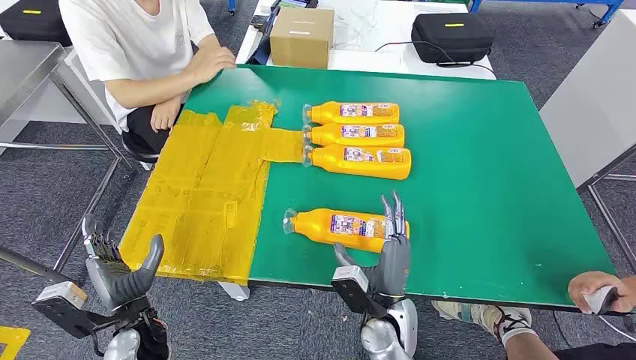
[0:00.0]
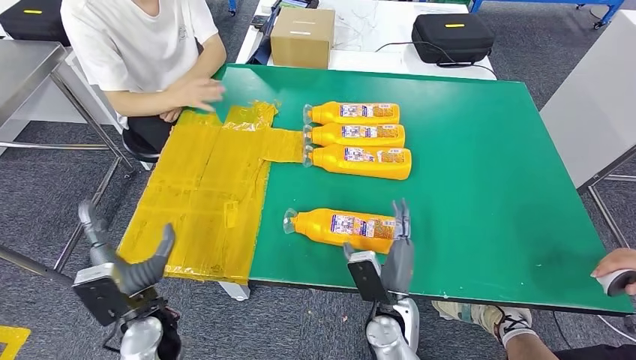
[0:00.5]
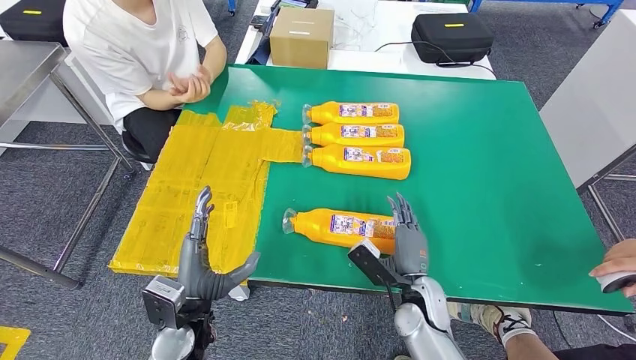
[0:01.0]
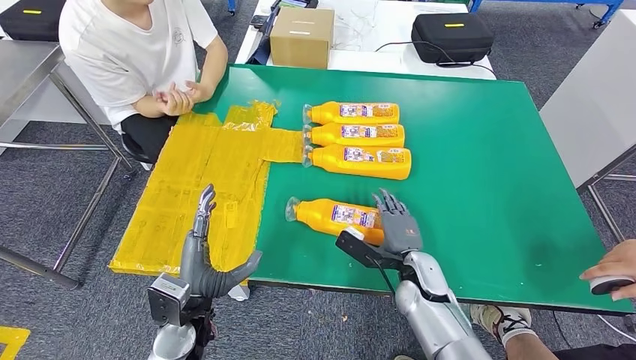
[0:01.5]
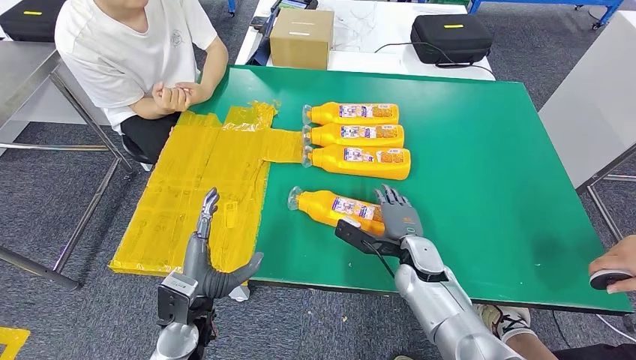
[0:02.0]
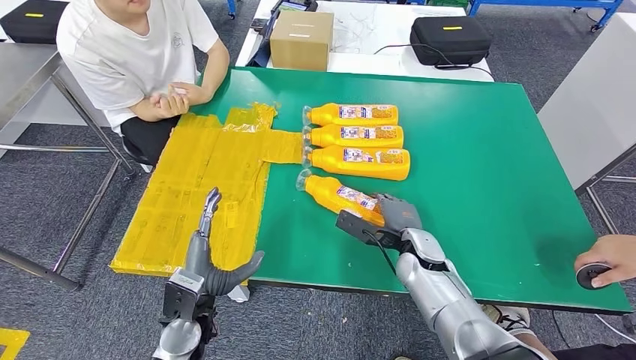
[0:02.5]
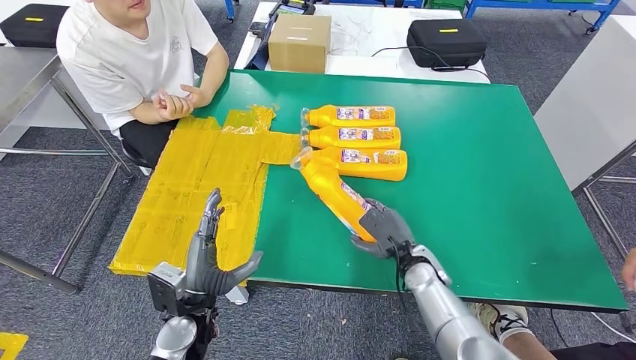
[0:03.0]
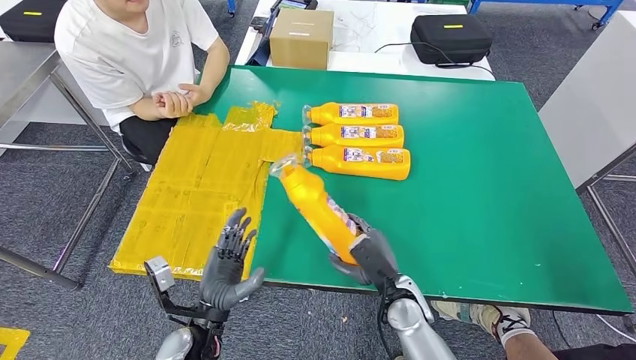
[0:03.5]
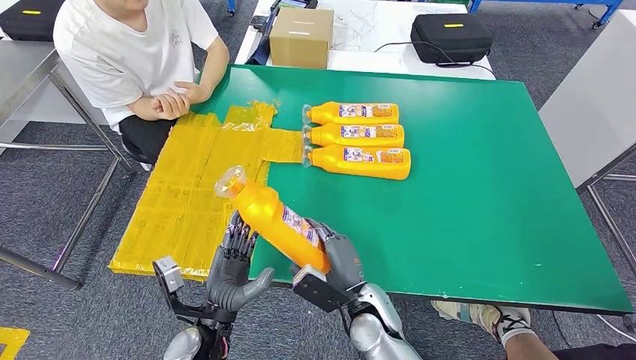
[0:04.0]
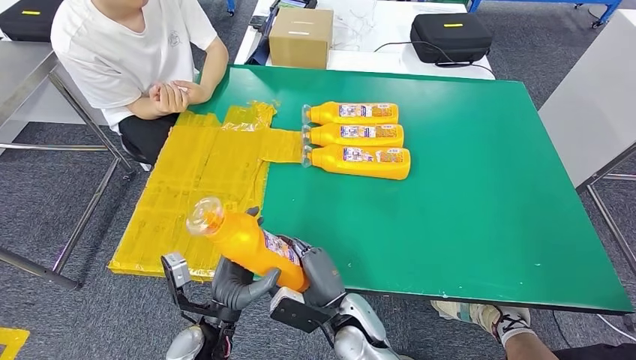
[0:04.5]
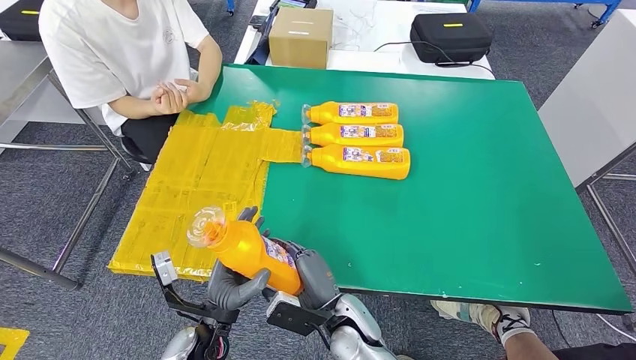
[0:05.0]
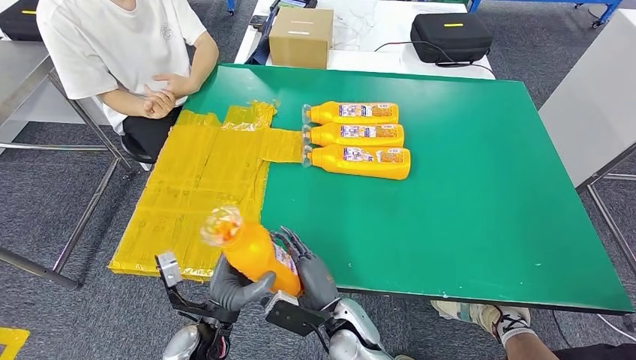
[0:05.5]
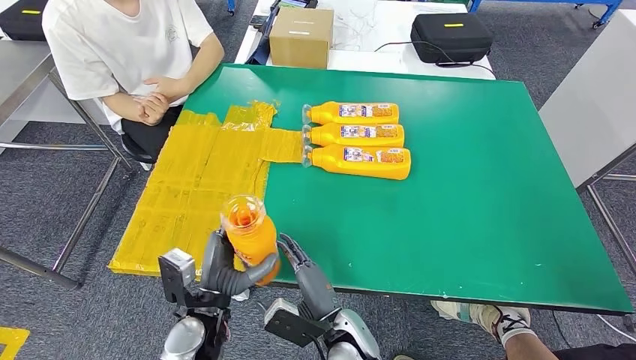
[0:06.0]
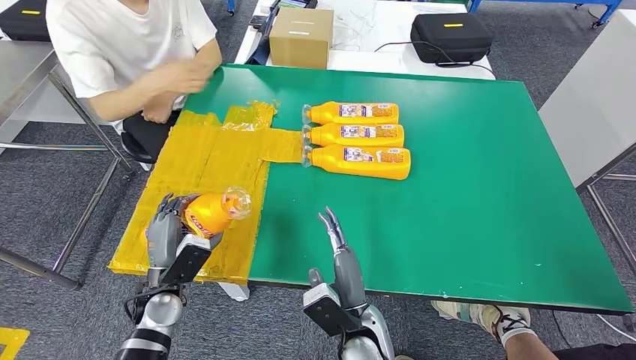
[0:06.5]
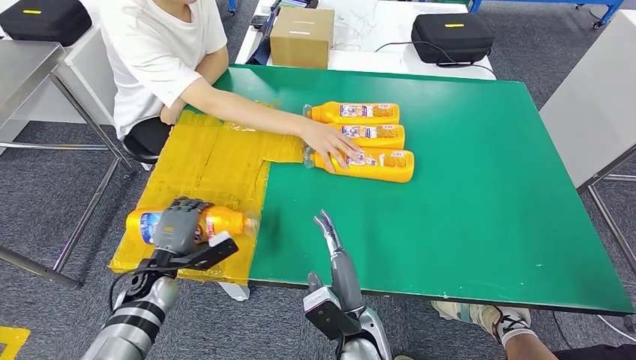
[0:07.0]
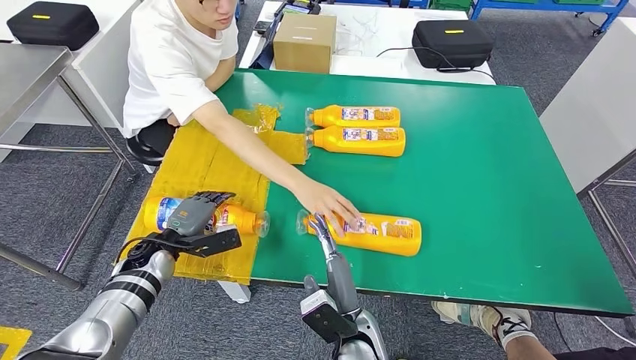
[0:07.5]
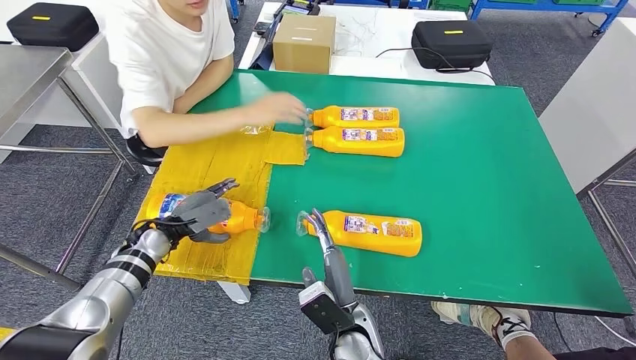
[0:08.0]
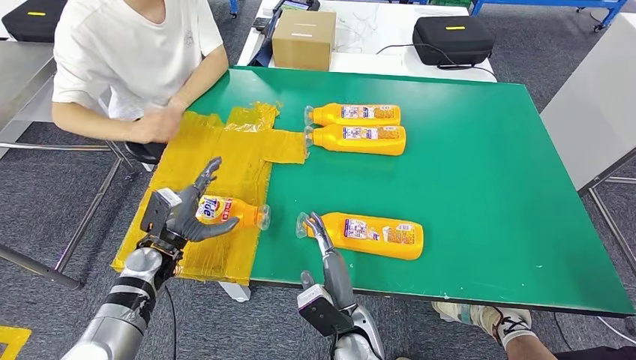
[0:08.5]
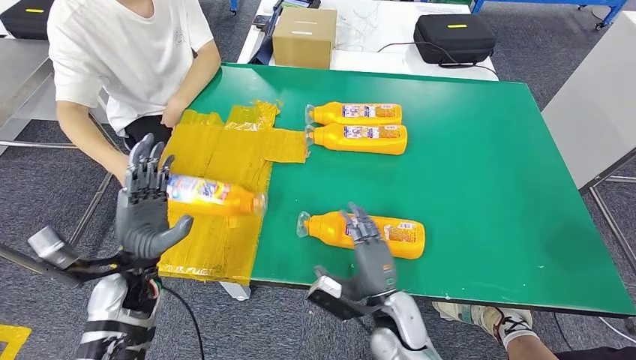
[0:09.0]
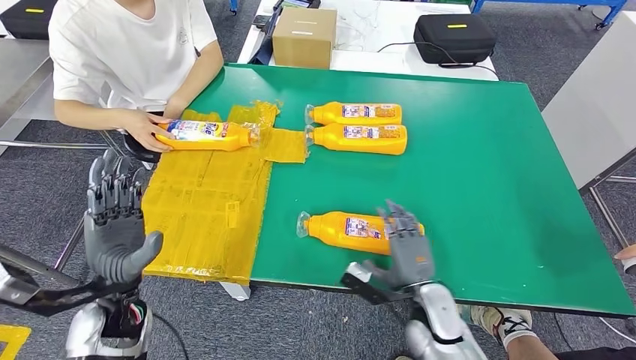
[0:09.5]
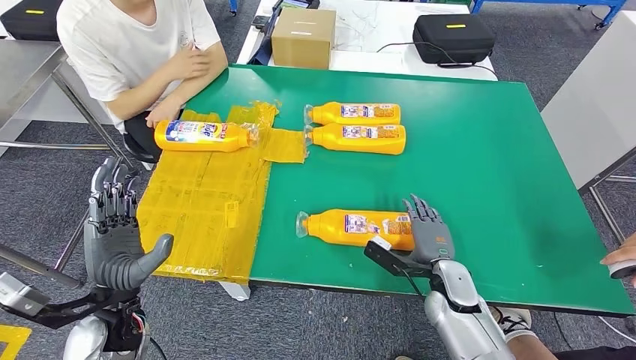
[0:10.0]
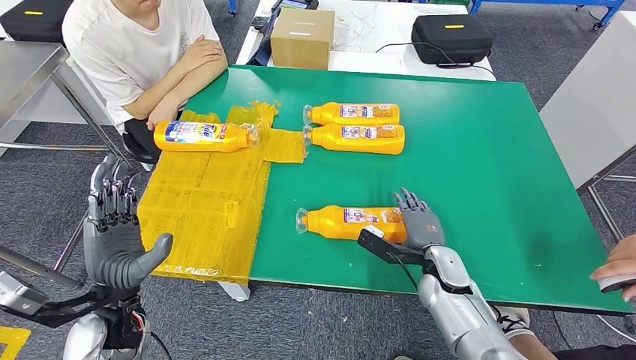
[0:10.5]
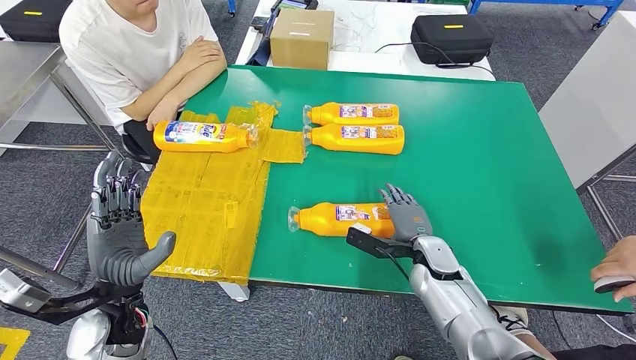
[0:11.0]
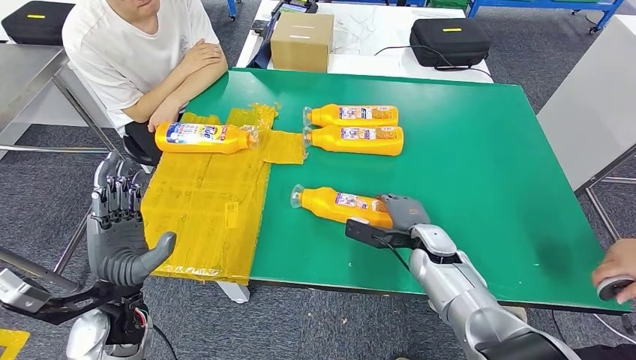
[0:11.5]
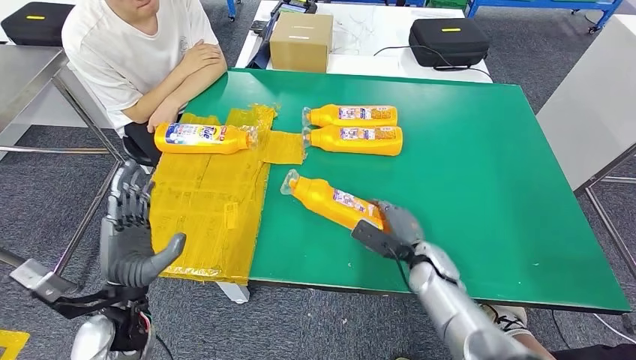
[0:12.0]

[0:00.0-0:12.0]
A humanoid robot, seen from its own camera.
Step, 0:00.0 to 0:03.5: Take the fast-moving consumer goods bottle from the table.
Step, 0:04.0 to 0:09.5: Flip the fast-moving consumer goods bottle to the front side.
0:02.0 to 0:04.0: The right hand shifts roughly 15 cm backward and to the left.
0:04.0 to 0:06.0: The right hand moves approximately 5 cm.

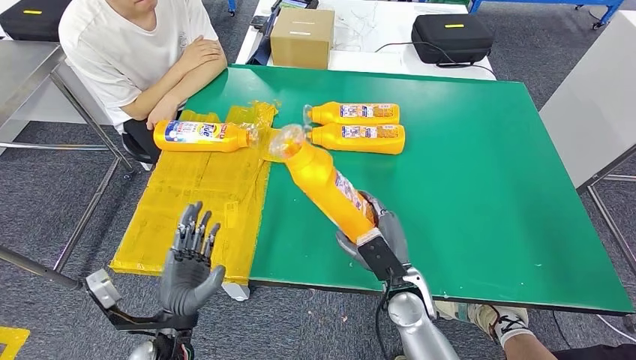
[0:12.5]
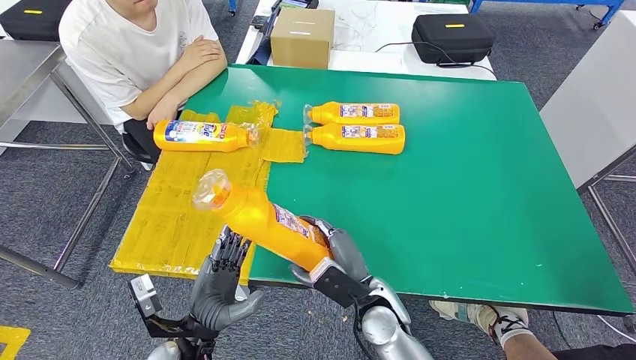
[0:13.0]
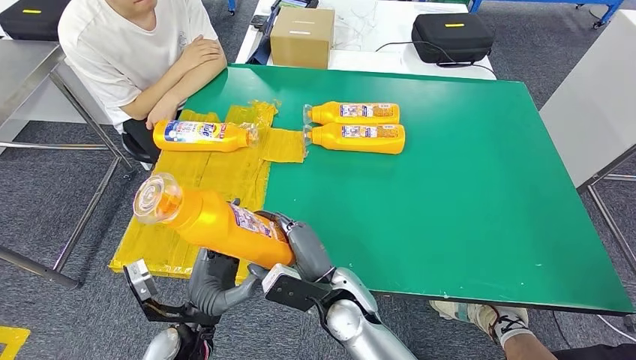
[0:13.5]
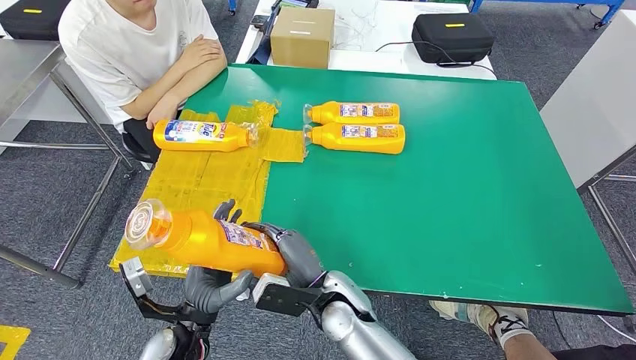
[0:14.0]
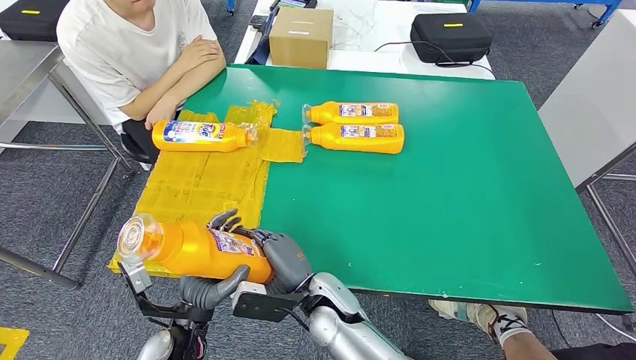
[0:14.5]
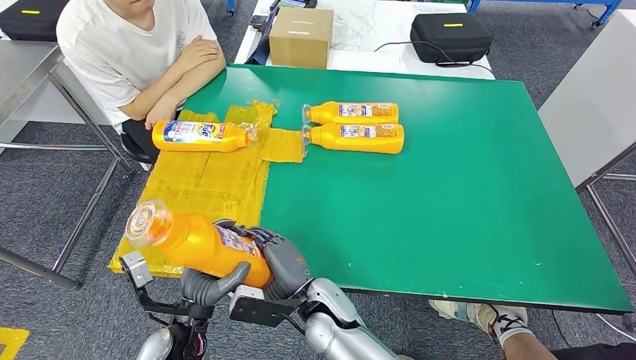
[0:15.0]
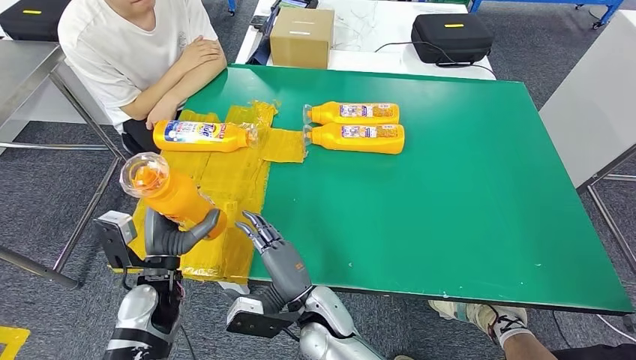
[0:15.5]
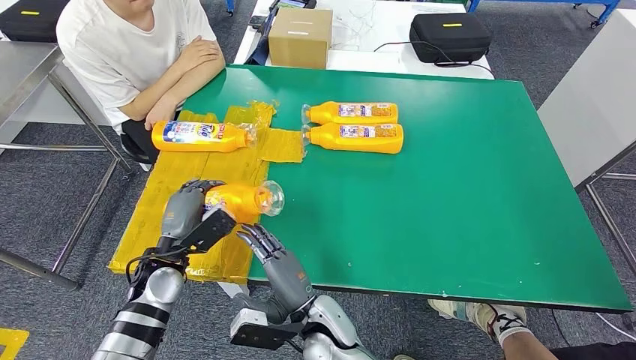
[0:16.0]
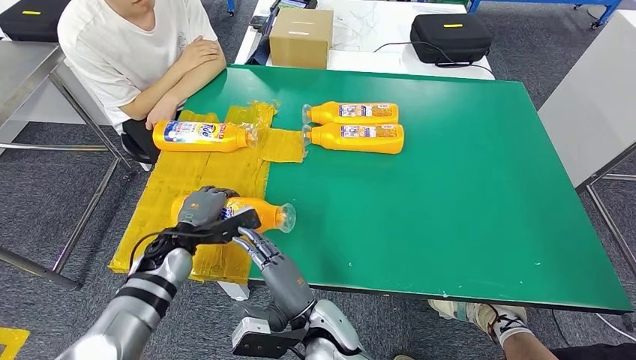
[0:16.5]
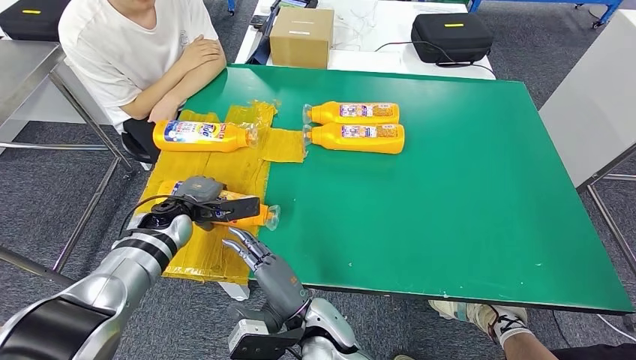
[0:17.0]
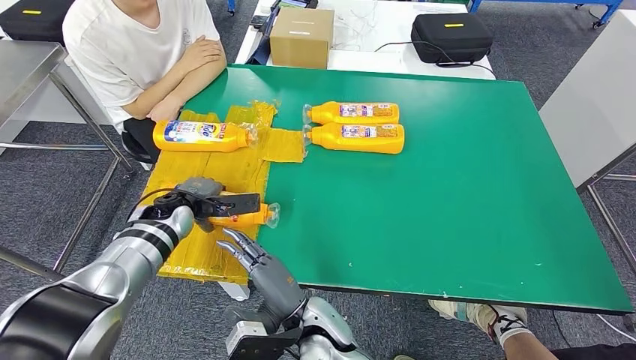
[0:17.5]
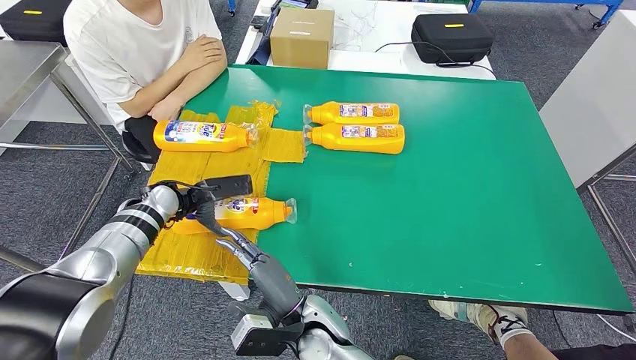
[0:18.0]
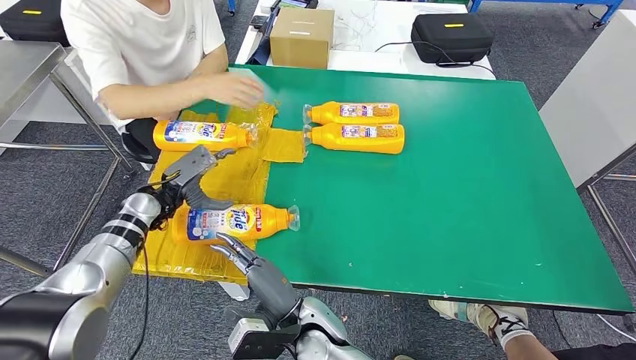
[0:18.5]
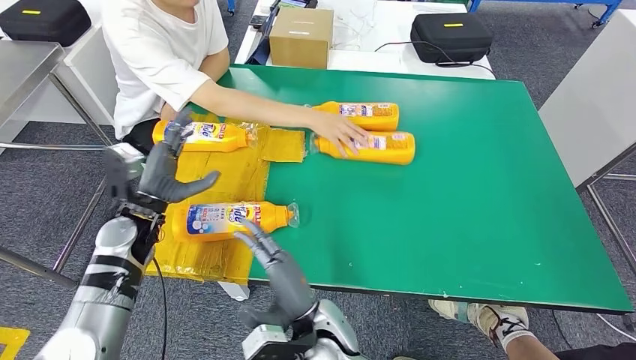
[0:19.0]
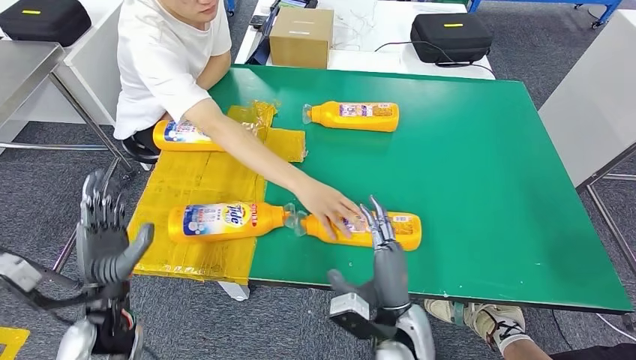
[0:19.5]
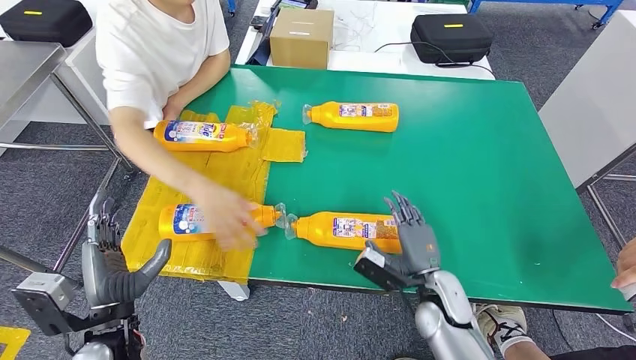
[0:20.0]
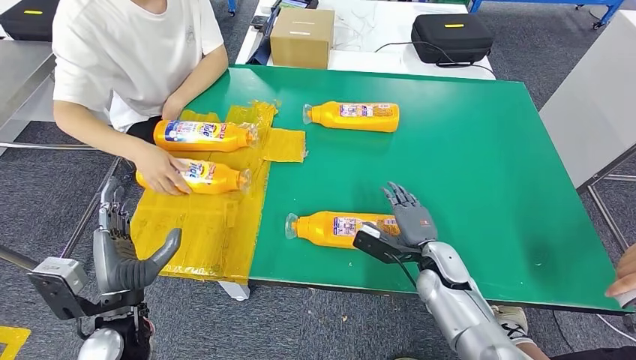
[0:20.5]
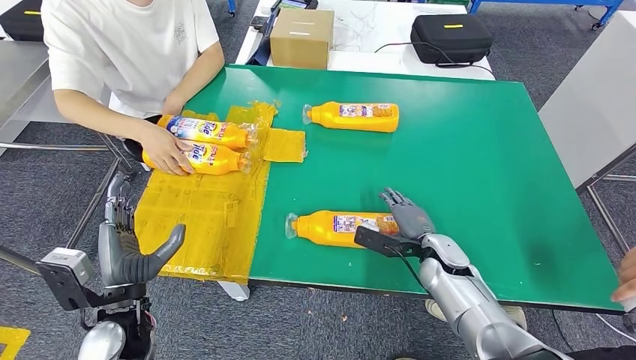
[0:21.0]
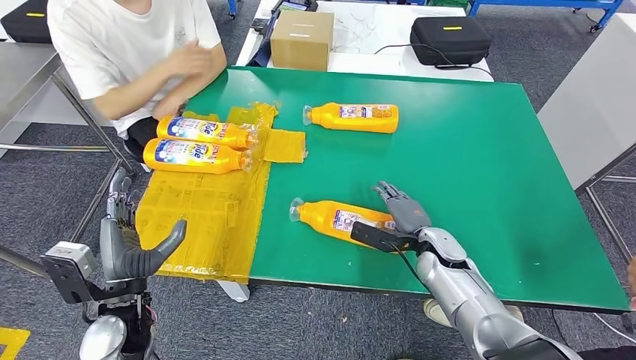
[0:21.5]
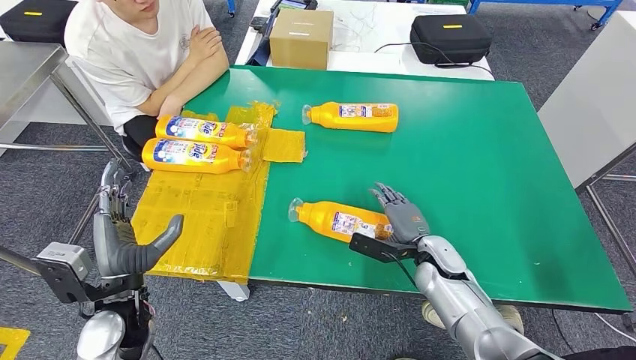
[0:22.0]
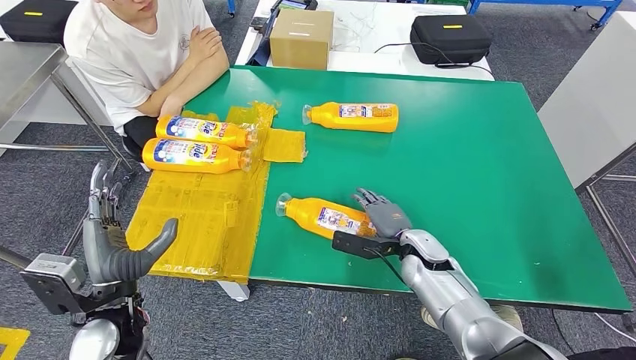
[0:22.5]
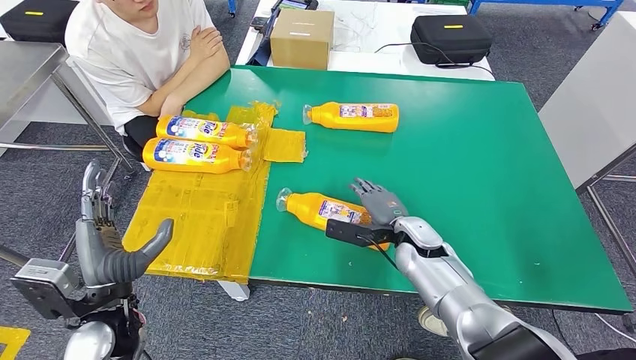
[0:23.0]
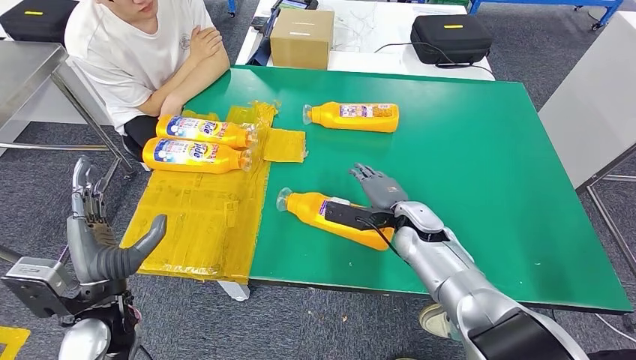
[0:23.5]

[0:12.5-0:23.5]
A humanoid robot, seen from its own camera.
Step, 0:14.0 to 0:18.5: Flip the fast-moving consumer goods bottle to the front side.
0:12.5 to 0:14.5: The right hand goes about 15 cm to the left.
0:14.5 to 0:16.0: The left hand goes some 15 cm forward and to the left.
0:16.0 to 0:18.0: The left hand heads forward and to the left, covering about 15 cm.
